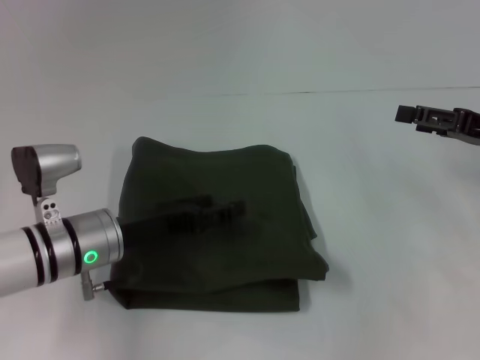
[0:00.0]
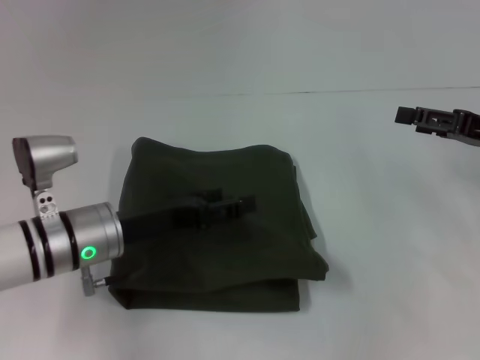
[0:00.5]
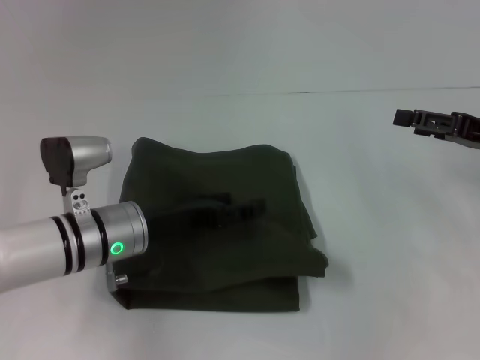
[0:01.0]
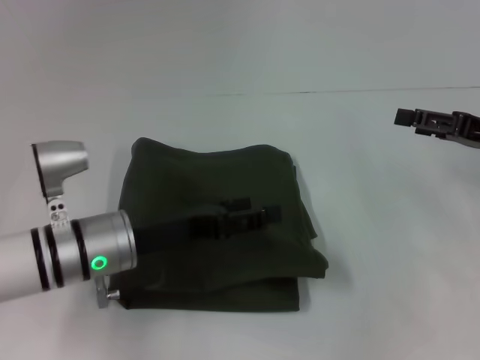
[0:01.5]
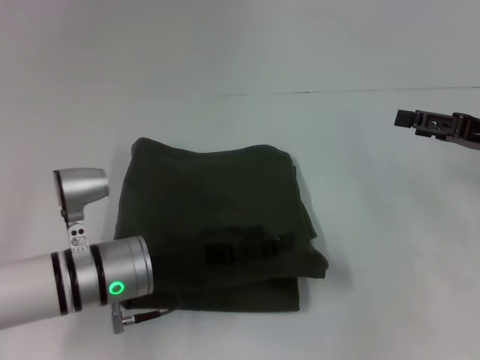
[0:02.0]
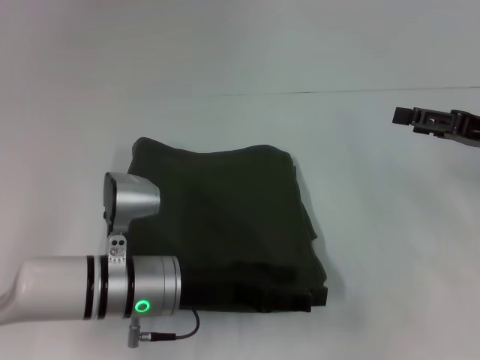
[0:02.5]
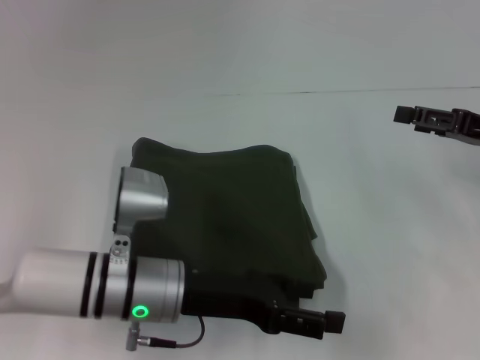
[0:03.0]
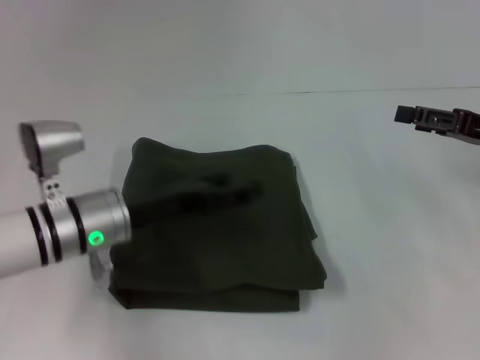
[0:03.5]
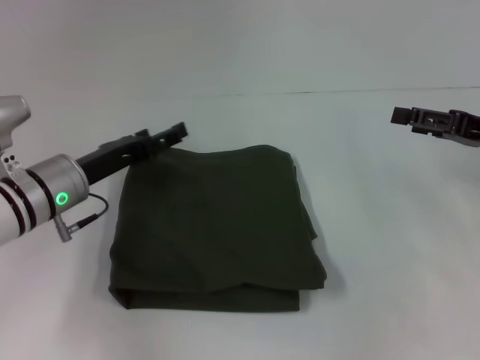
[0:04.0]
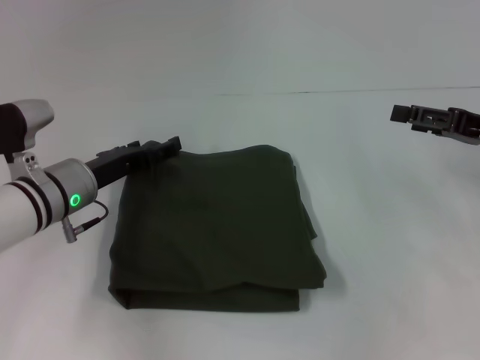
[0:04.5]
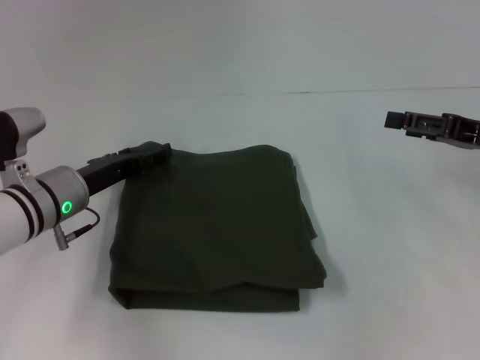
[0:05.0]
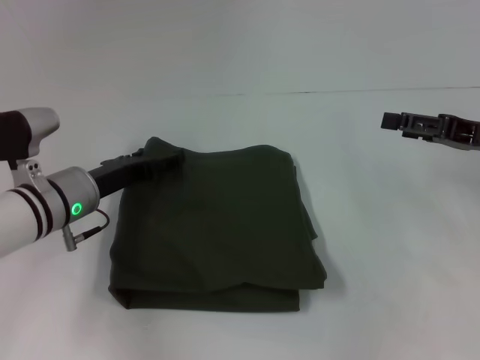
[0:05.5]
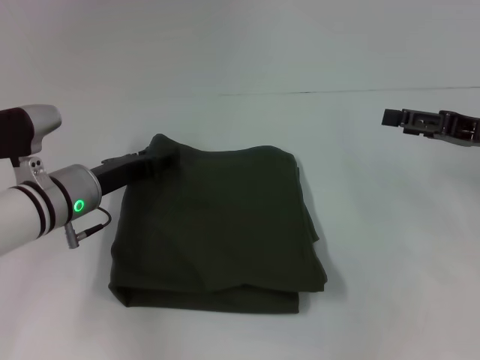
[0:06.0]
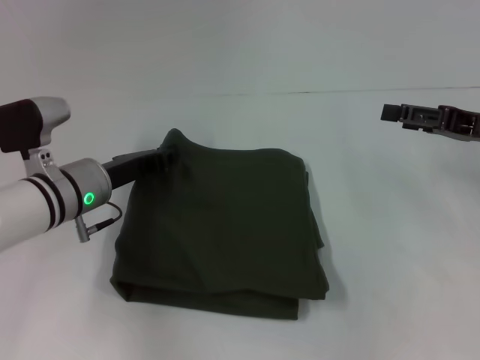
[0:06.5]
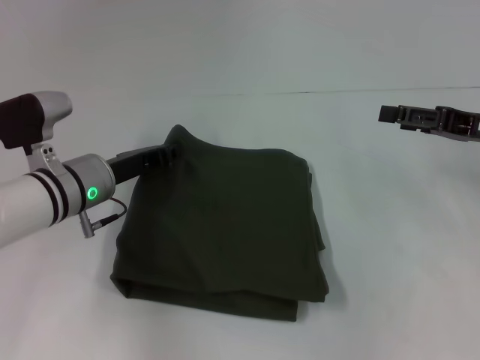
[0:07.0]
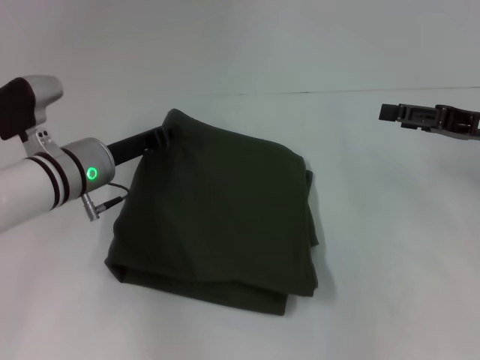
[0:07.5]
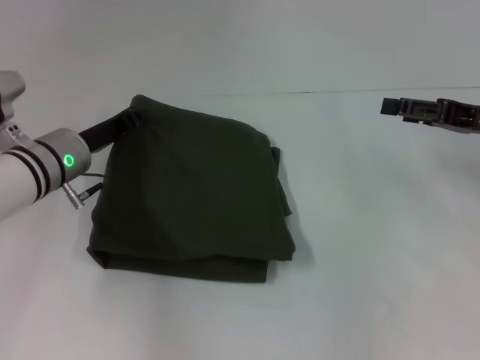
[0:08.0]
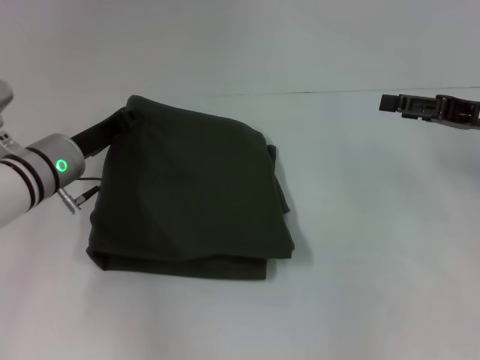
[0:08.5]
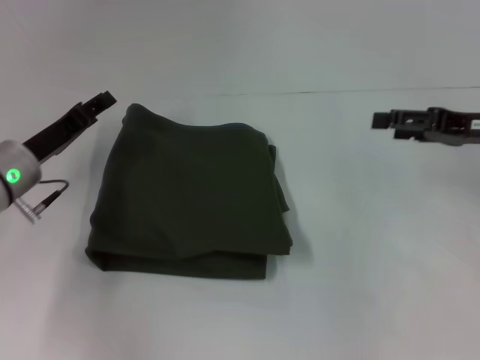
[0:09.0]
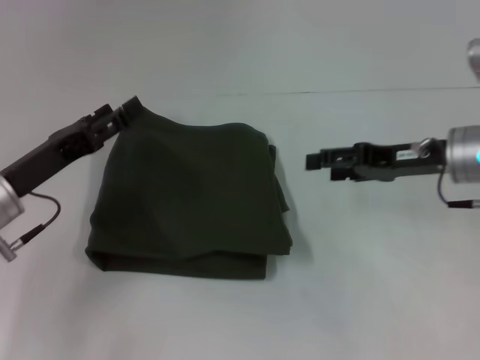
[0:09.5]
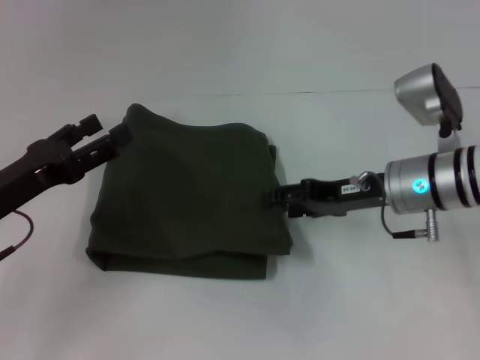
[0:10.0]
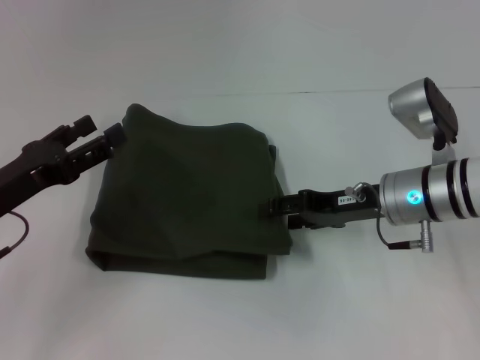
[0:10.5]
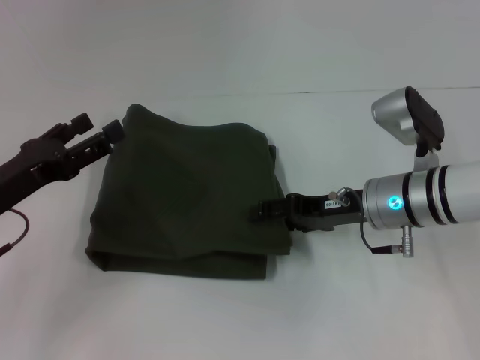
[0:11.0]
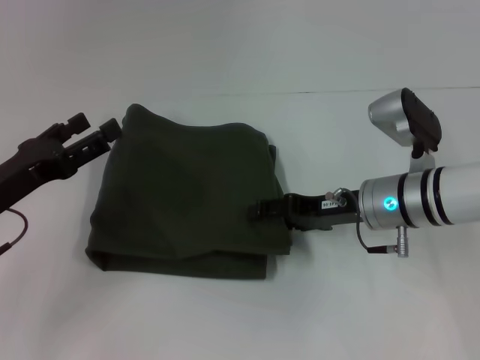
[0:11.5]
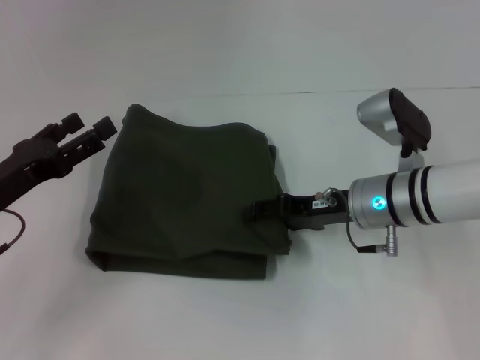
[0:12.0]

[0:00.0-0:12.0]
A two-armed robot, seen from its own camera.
0:00.0 to 0:02.0: The grippers stay close to where they were, moving slightly.
0:02.0 to 0:04.0: The left gripper goes about 10 cm forward and to the left.
0:04.0 to 0:06.0: The grippers move only a little.
0:06.0 to 0:08.0: The left gripper closes its fingers.
0:08.0 to 0:10.0: The right gripper is displaced to the left by roughly 15 cm; the left gripper shifts about 15 cm backward and to the left, and opens up.
0:10.0 to 0:12.0: The grippers stay close to where they were, moving slightly.

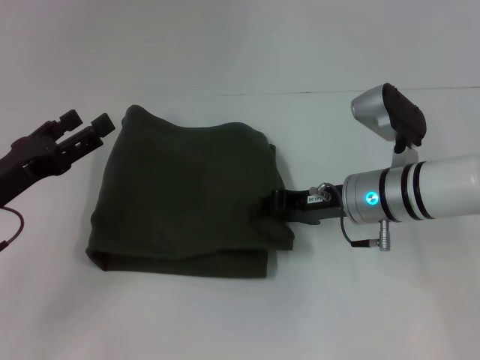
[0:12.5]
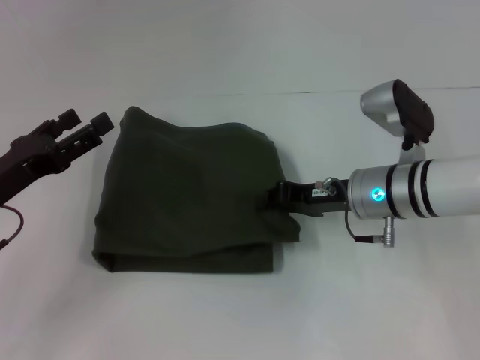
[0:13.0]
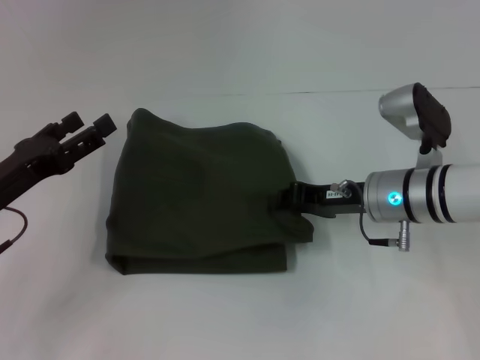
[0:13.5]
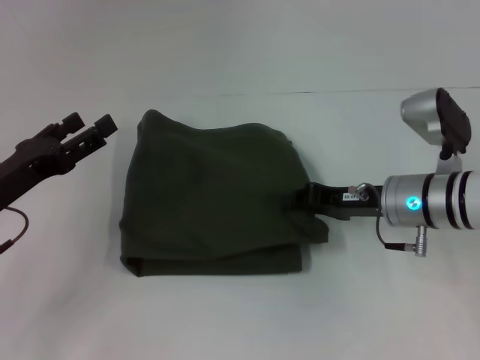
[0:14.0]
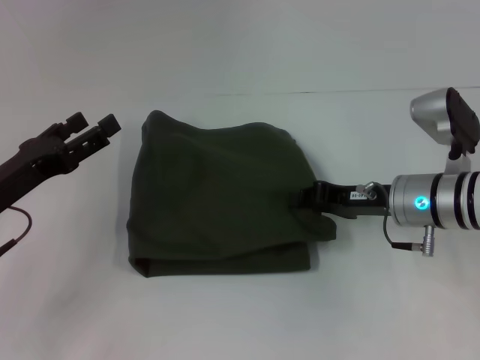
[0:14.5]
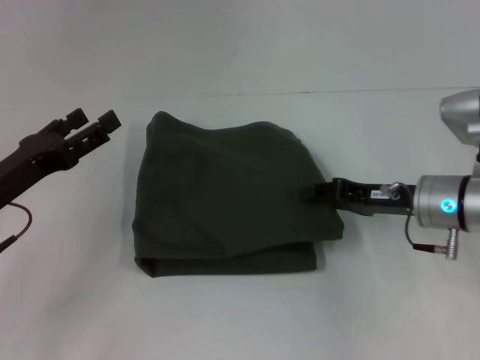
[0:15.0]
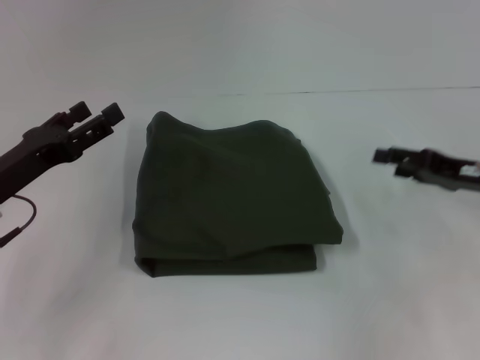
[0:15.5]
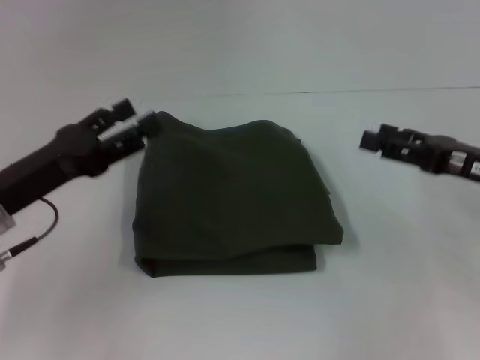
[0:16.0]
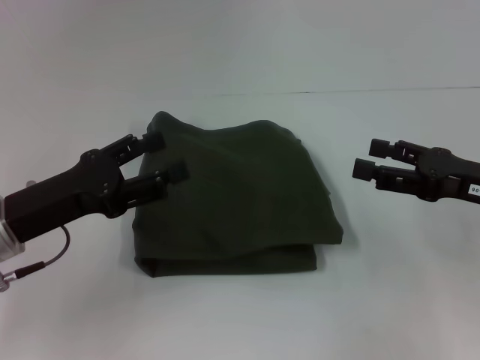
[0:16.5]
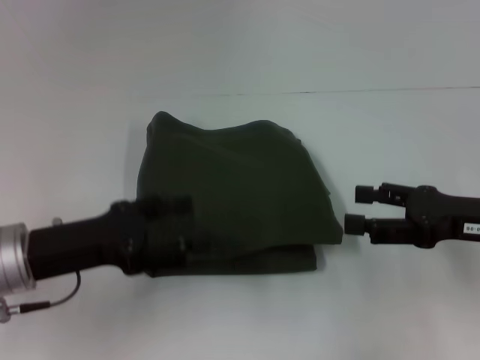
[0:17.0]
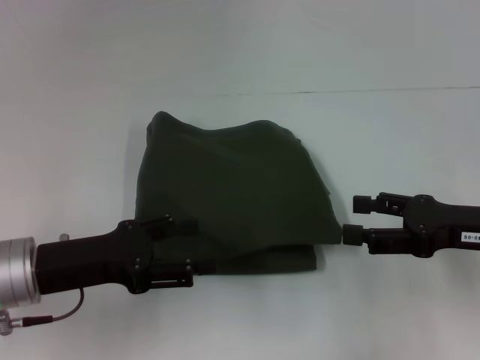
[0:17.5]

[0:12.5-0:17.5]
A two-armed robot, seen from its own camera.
0:12.5 to 0:15.0: The right gripper shifts roughly 5 cm to the right, and closes up.
0:15.0 to 0:17.5: The right gripper is displaced backward and to the right by roughly 10 cm, and opens up, while the left gripper changes place by about 5 cm.

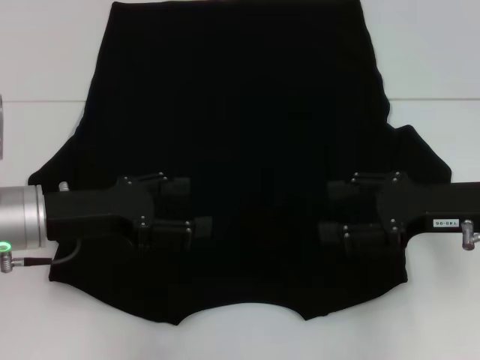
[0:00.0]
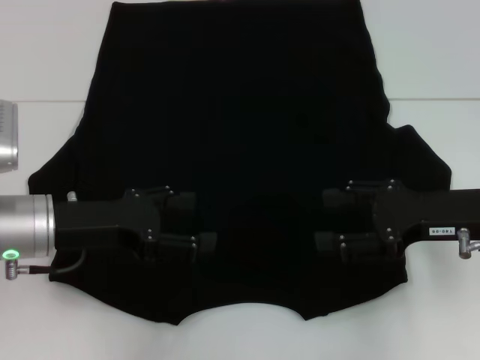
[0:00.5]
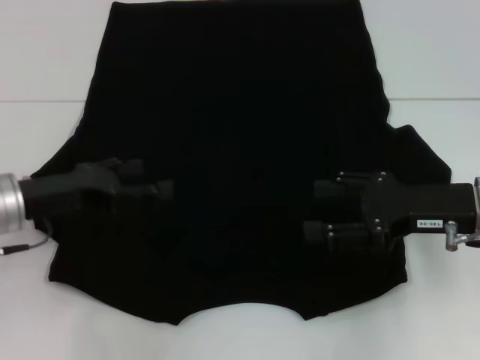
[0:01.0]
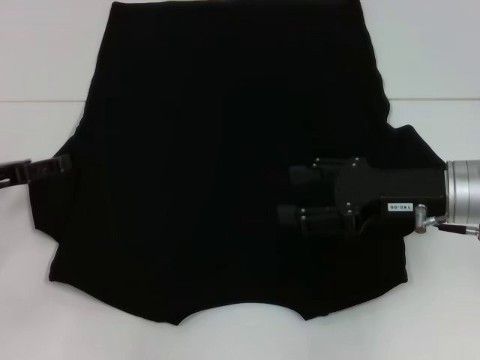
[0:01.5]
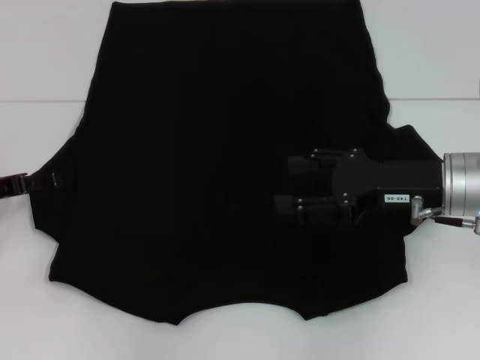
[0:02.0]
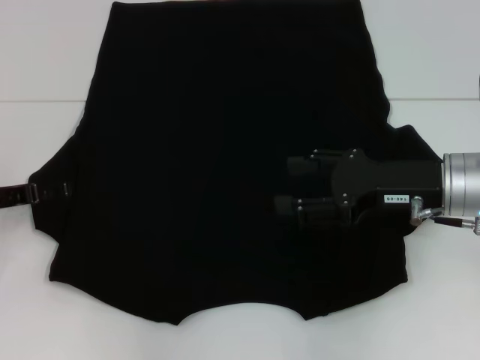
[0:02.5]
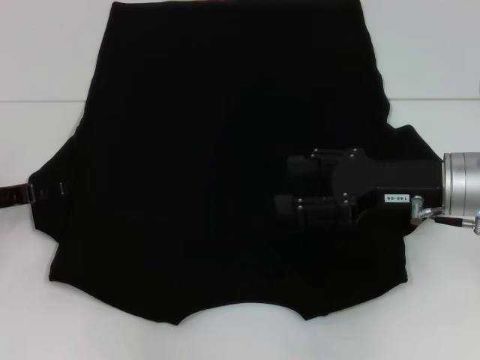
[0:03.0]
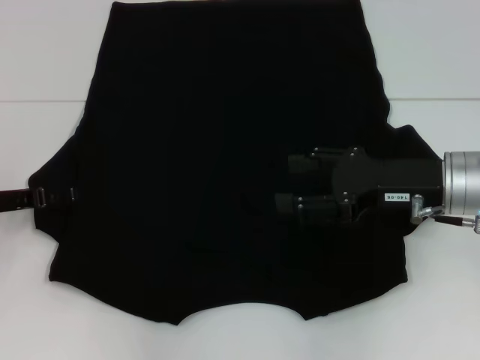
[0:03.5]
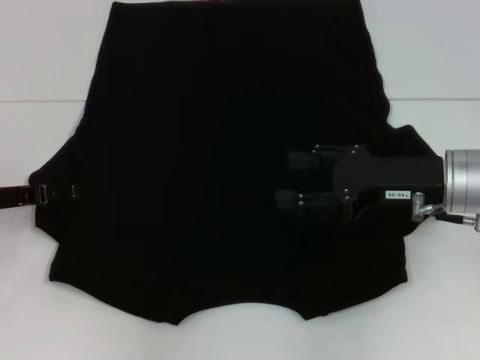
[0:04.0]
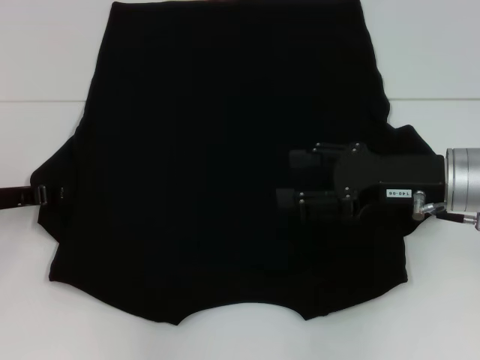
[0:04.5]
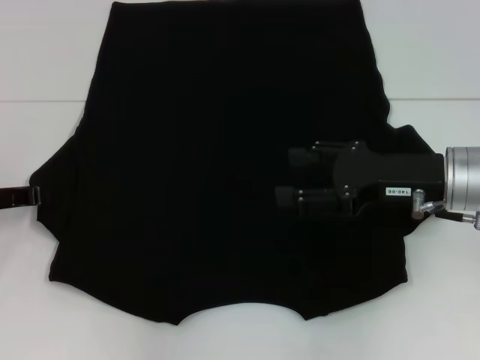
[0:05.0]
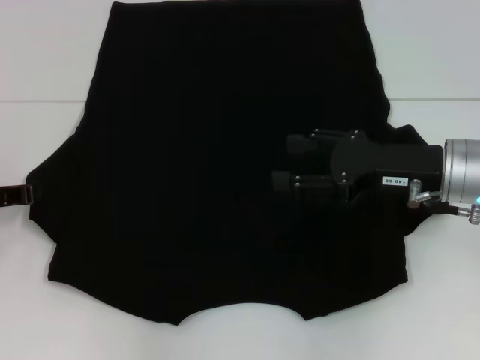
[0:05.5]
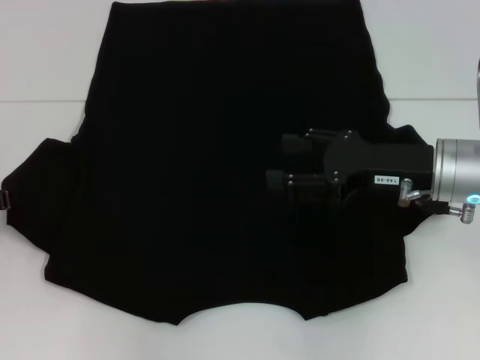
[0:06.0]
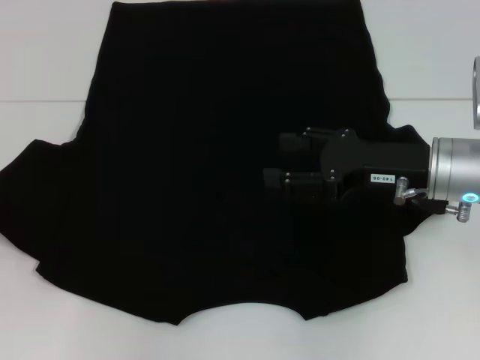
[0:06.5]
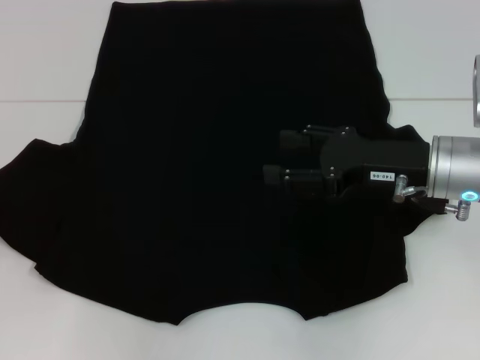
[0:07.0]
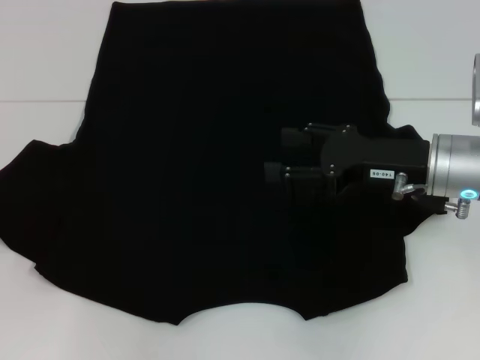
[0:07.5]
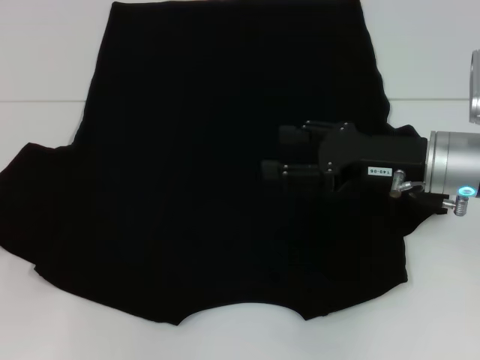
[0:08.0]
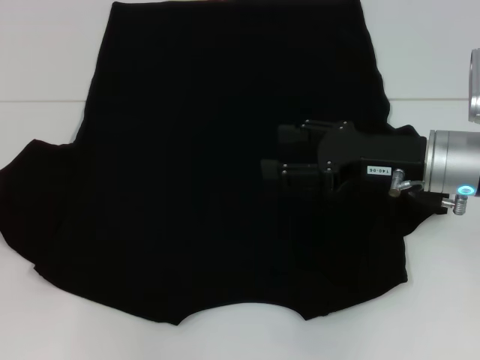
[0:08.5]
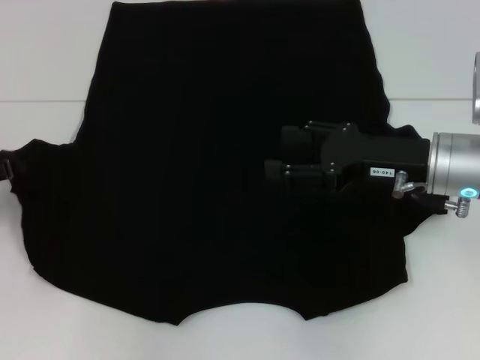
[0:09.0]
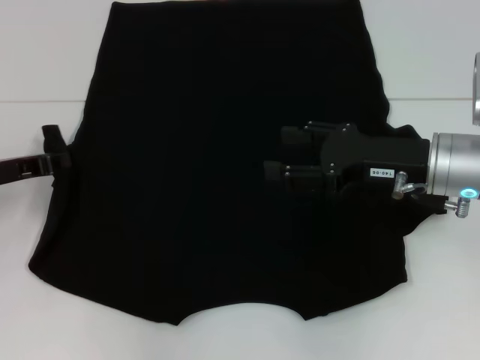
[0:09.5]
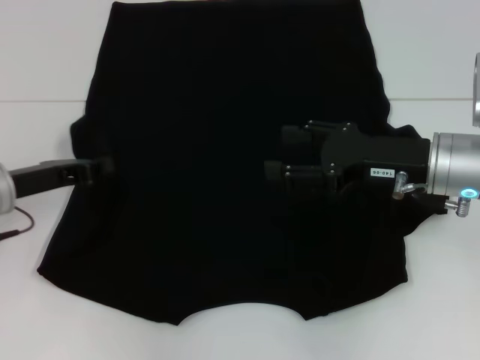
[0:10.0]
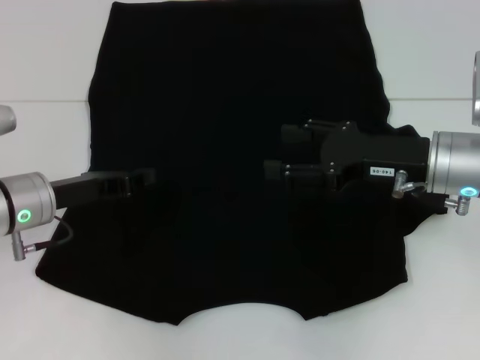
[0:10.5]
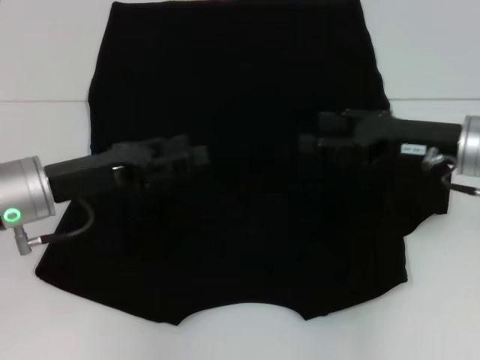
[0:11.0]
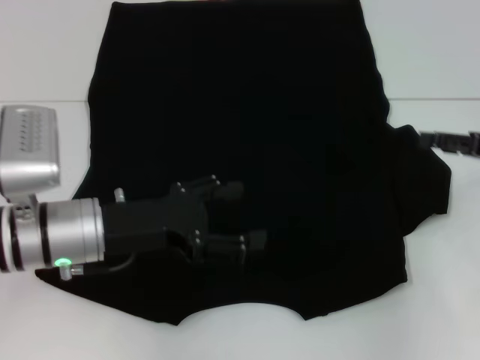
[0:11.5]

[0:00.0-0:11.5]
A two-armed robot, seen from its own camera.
Step, 0:00.0 to 0:11.0: Fold the bottom left sleeve with your left hand.
0:00.0 to 0:02.0: The left gripper is displaced to the left by some 10 cm.
0:02.0 to 0:04.0: The grippers stay close to where they were, moving slightly.
0:04.0 to 0:06.0: The left gripper closes up.
0:06.0 to 0:07.5: The grippers move only a little.
0:07.5 to 0:09.5: The left gripper shifts by about 5 cm.
0:09.5 to 0:11.5: The grippers both shift to the right by about 15 cm. The left gripper opens.
